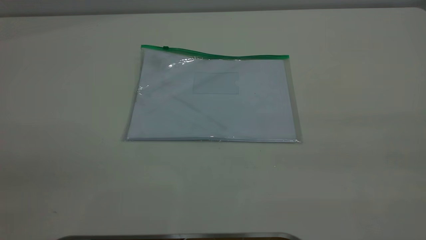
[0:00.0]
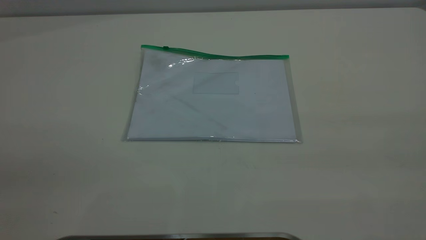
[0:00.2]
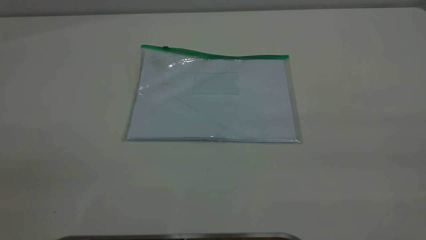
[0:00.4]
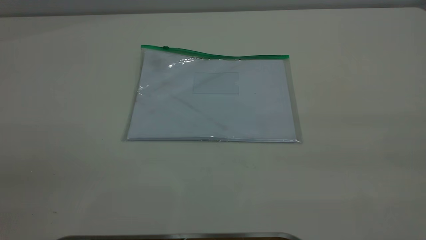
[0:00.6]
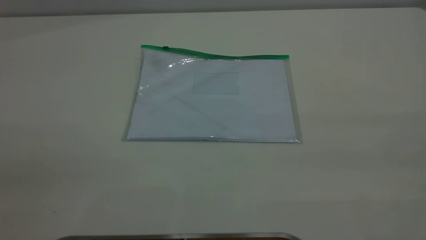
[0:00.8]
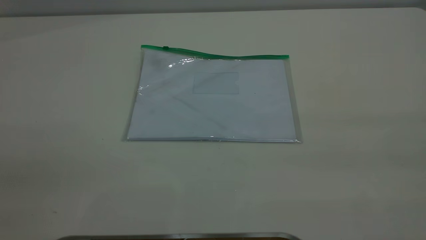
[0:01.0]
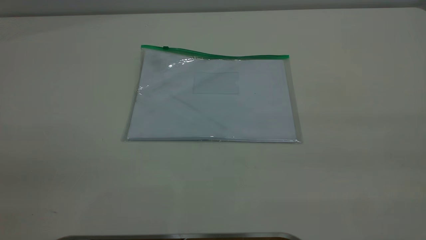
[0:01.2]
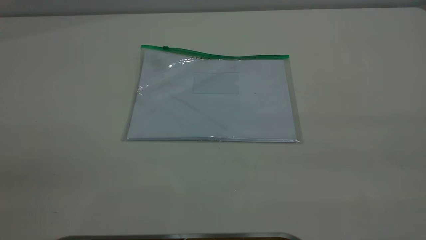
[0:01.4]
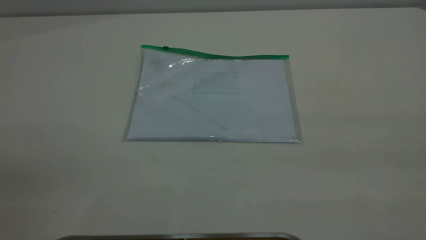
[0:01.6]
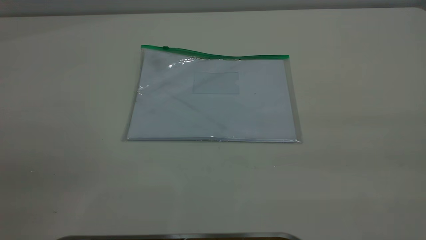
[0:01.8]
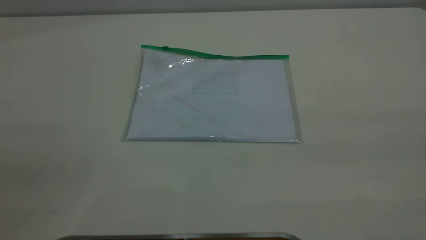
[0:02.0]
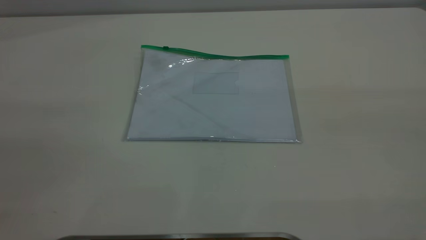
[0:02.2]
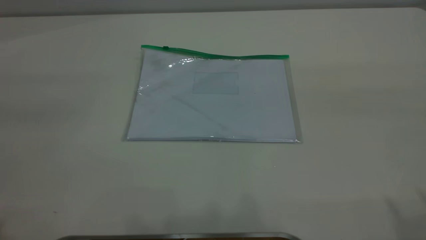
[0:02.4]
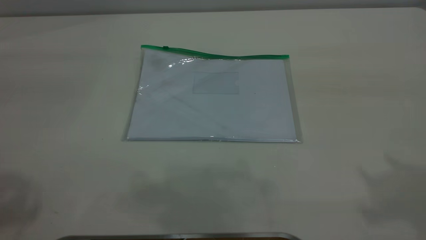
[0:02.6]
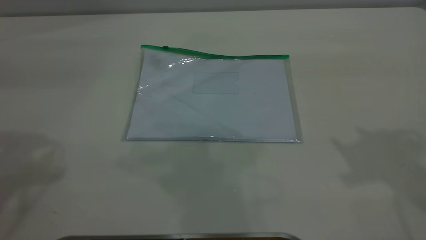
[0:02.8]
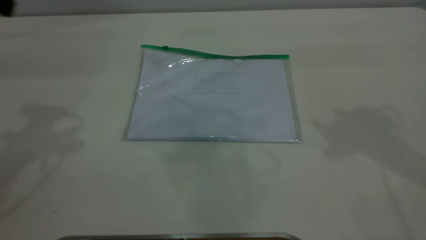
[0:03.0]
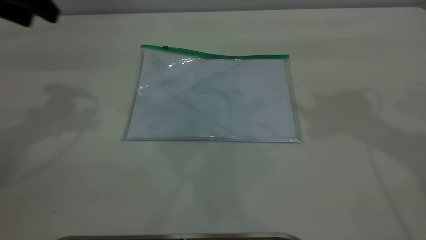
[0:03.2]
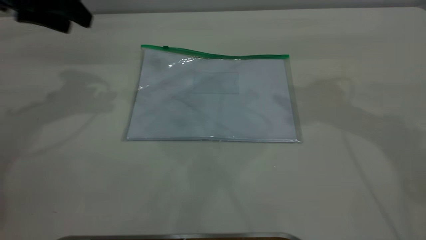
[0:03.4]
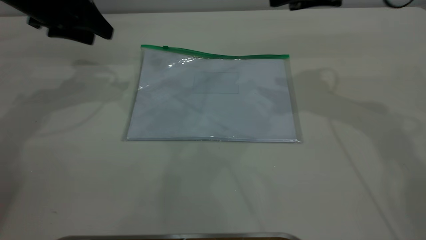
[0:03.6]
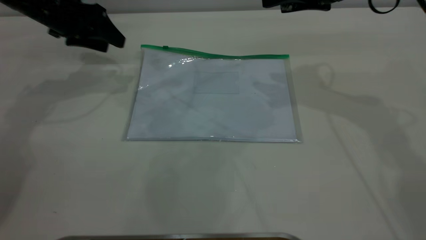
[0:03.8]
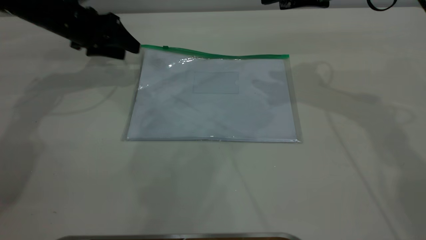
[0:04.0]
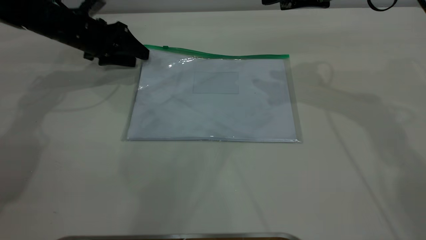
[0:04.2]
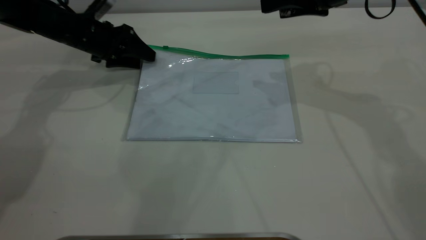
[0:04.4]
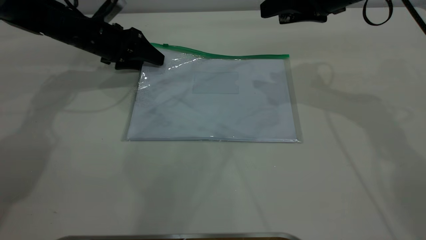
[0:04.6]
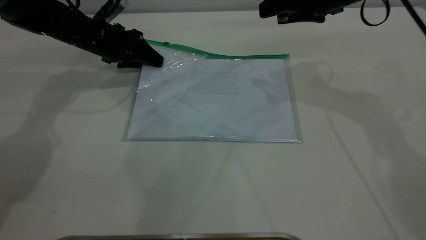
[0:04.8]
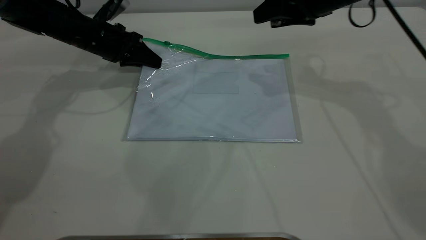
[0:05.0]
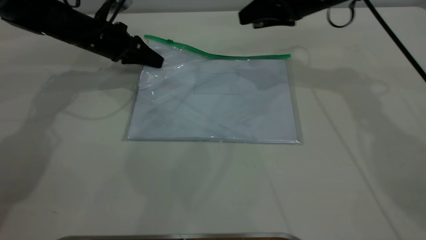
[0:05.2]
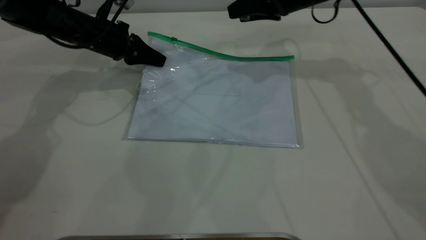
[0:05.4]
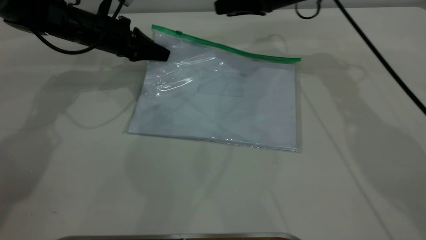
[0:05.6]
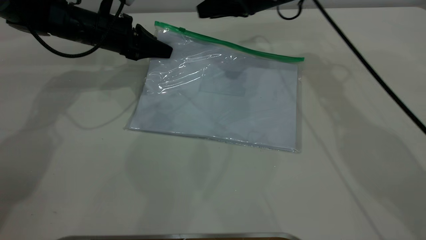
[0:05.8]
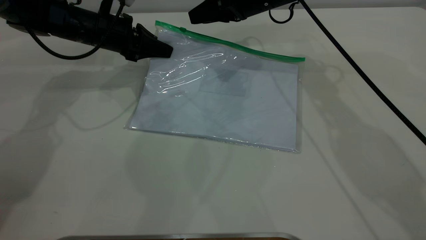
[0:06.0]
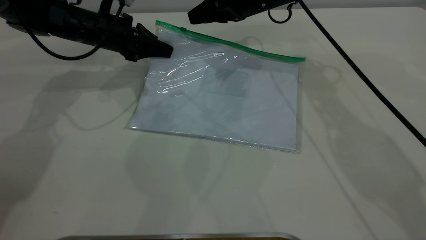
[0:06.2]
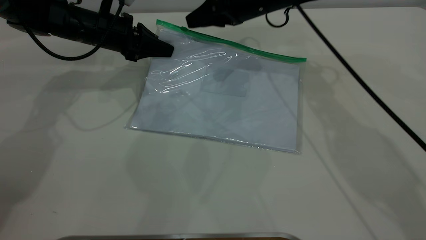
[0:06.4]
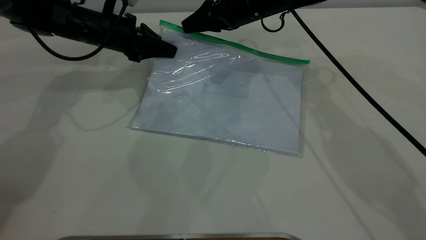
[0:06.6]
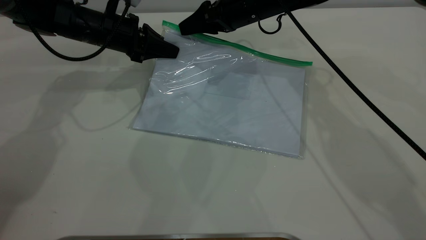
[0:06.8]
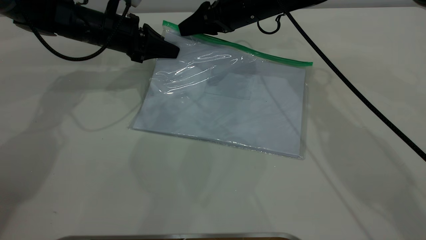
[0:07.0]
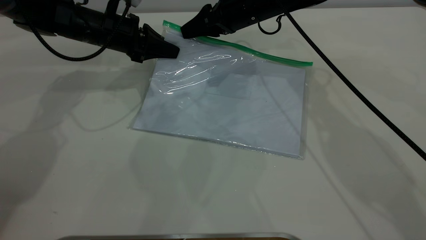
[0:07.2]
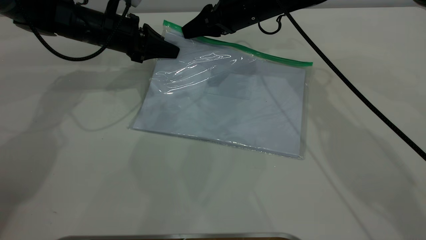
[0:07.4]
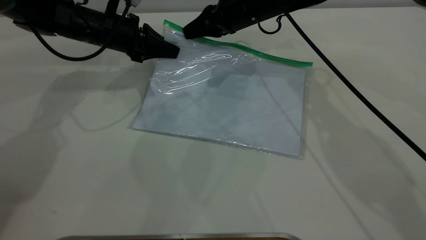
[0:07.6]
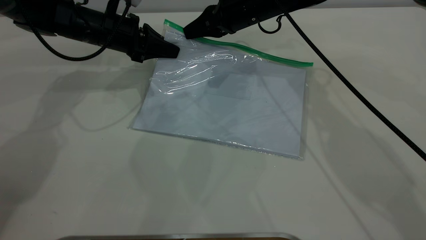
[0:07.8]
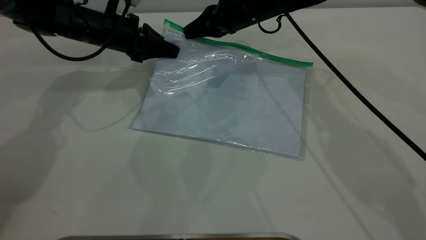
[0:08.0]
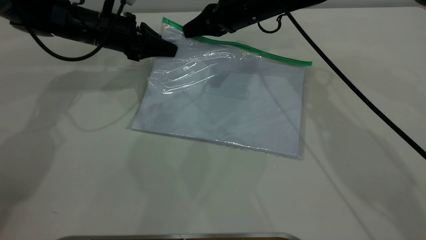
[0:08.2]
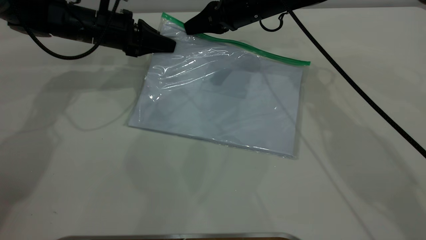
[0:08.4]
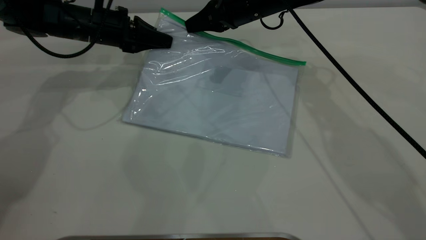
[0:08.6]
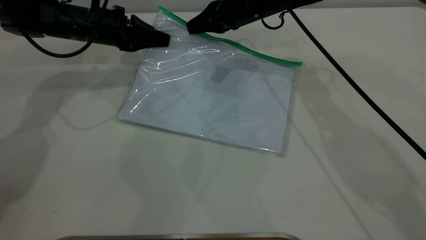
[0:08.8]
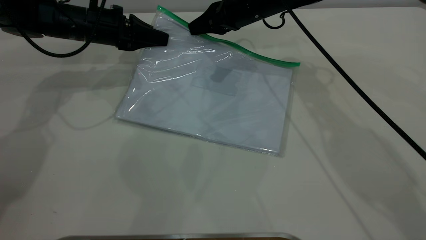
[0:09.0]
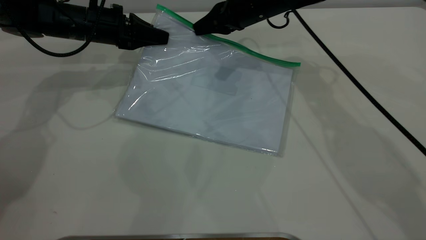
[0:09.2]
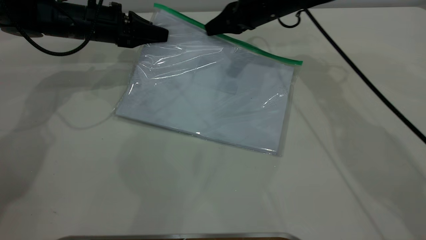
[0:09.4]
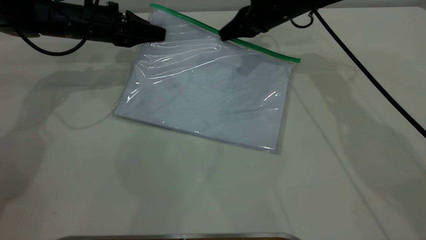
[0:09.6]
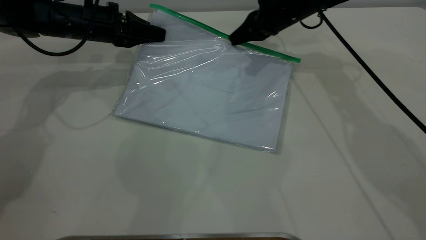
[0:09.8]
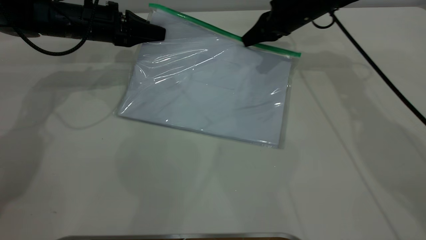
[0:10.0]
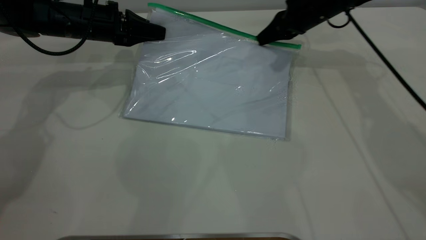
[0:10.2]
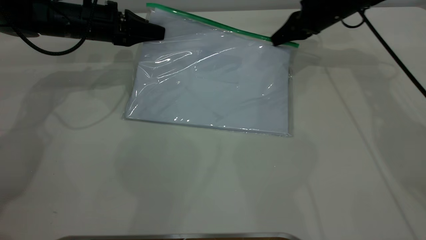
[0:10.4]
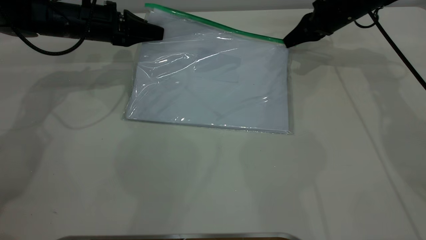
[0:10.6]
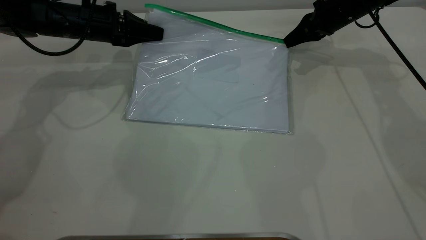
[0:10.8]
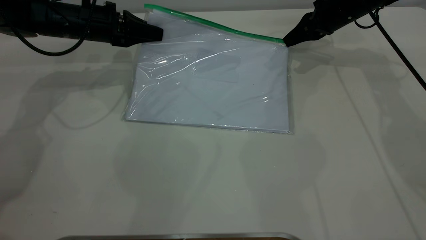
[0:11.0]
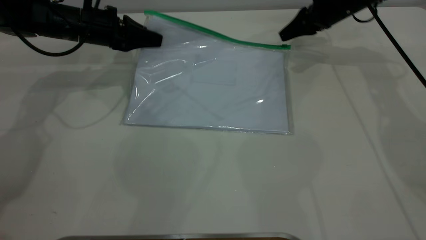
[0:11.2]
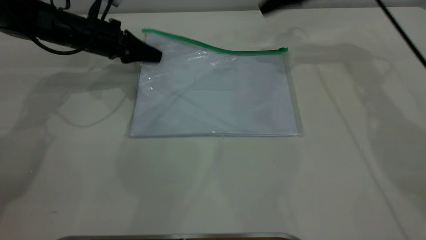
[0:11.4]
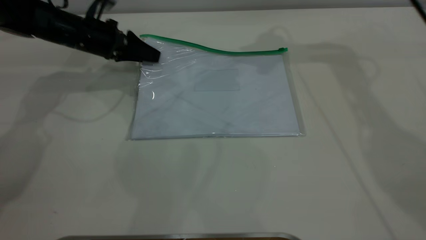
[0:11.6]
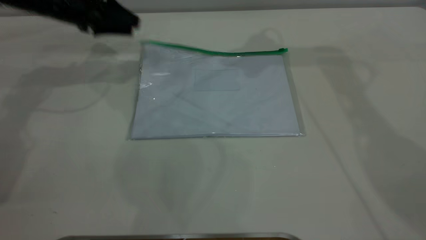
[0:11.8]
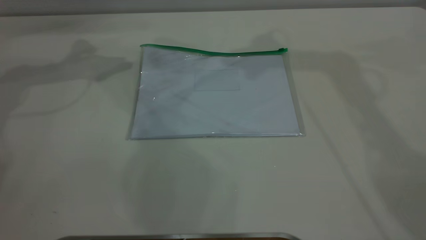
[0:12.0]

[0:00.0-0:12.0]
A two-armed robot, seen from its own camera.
Step, 0:00.0 to 0:05.2: Pick up the transparent plastic bag with the left gripper.
Step, 0:05.4 to 0:11.2: Pulling up the zipper on the transparent plastic bag with the right gripper to close it.
Step, 0:11.4 to 0:11.8: Place the transparent plastic bag.
0:00.0 to 0:01.6: Both grippers stay put.
0:03.0 to 0:04.4: The right gripper travels downward, forward and to the left by some 20 cm, while the left gripper goes roughly 30 cm downward and forward.
0:04.4 to 0:06.0: The left gripper closes, while the right gripper is displaced to the left, forward and downward by some 15 cm.
0:06.0 to 0:07.6: The right gripper closes up.
0:07.6 to 0:09.0: The grippers move only a little.
0:09.0 to 0:10.4: The right gripper moves to the right, about 15 cm.
0:10.4 to 0:12.0: The left gripper travels upward and to the left by roughly 20 cm, and opens; the right gripper moves upward, roughly 35 cm, and opens.
